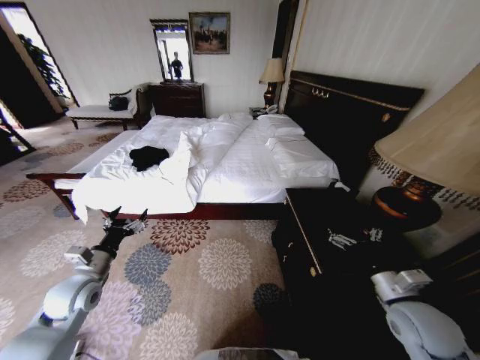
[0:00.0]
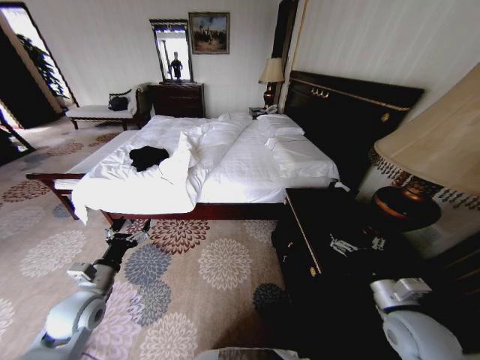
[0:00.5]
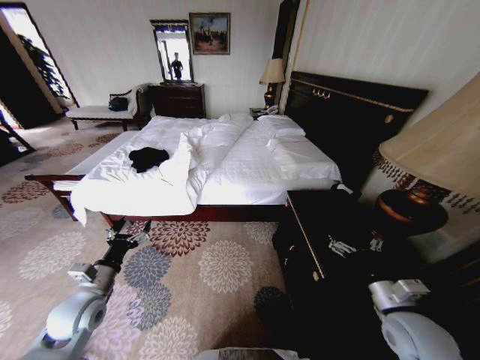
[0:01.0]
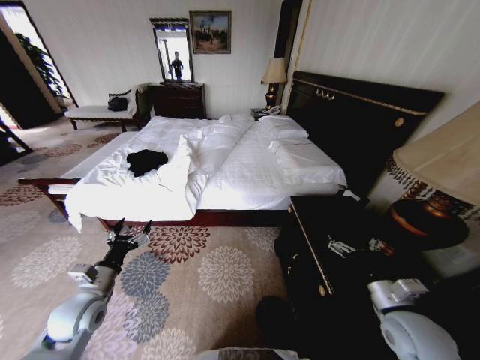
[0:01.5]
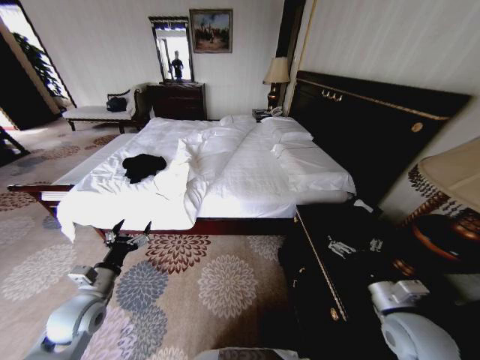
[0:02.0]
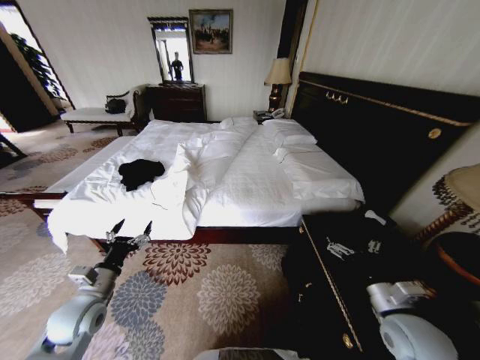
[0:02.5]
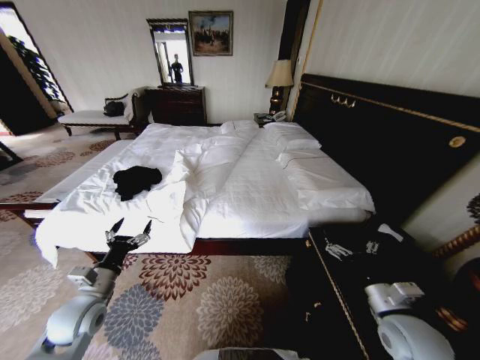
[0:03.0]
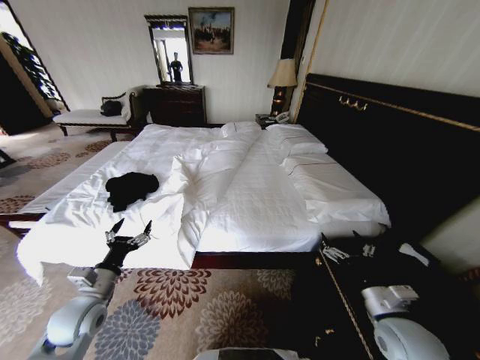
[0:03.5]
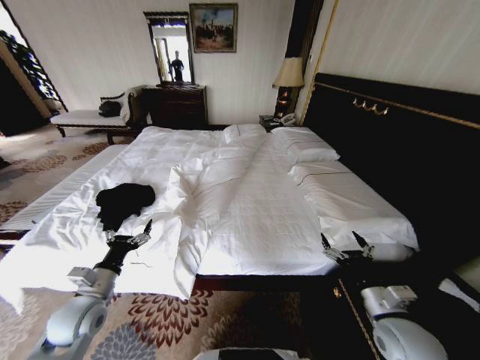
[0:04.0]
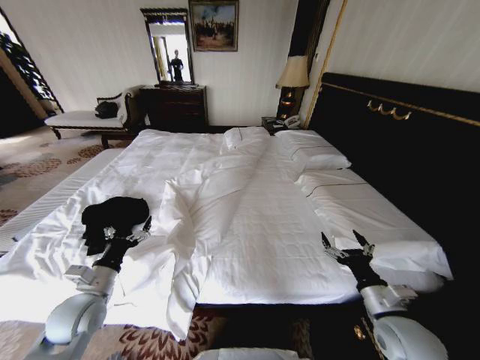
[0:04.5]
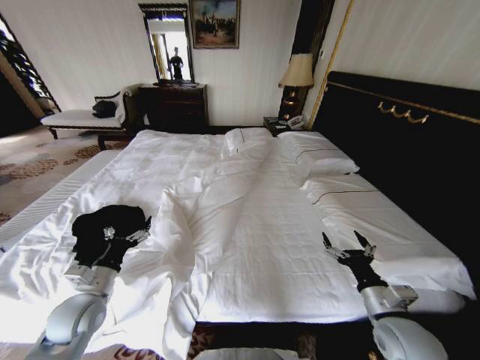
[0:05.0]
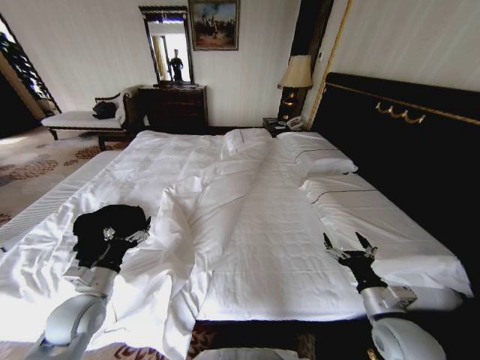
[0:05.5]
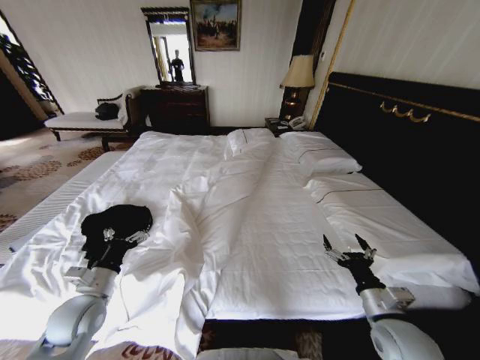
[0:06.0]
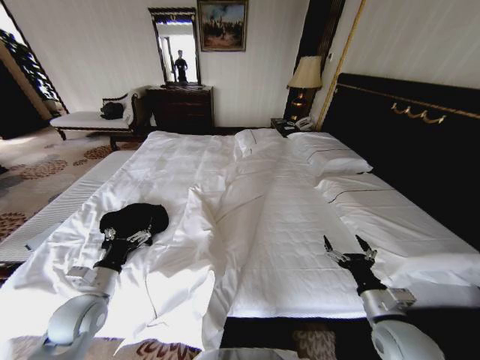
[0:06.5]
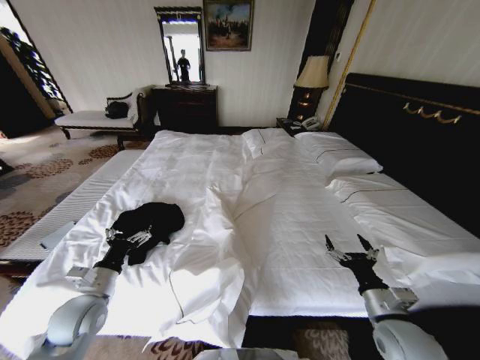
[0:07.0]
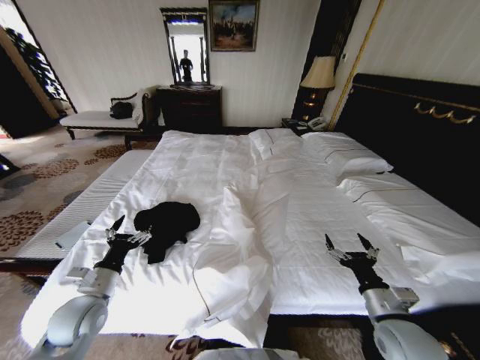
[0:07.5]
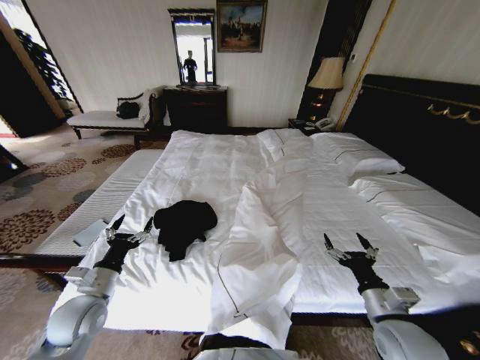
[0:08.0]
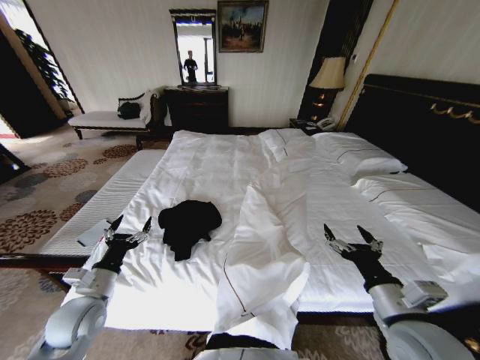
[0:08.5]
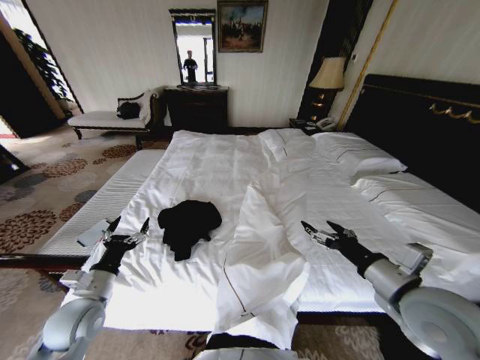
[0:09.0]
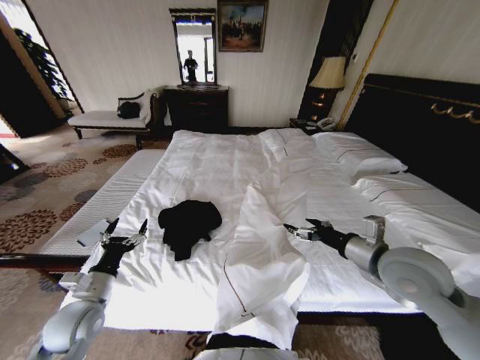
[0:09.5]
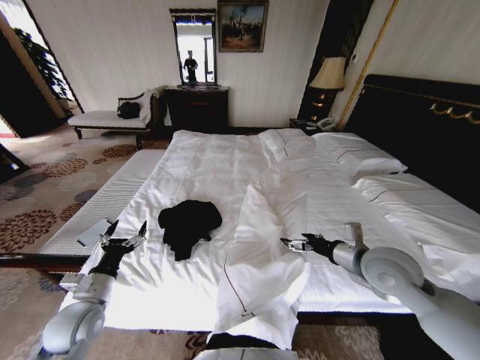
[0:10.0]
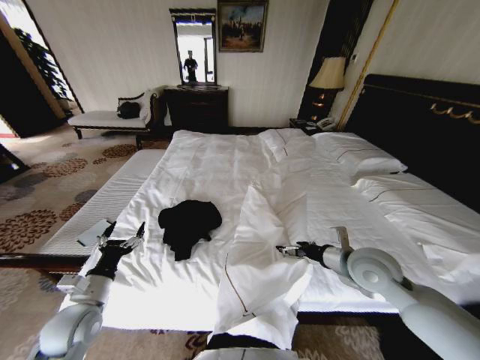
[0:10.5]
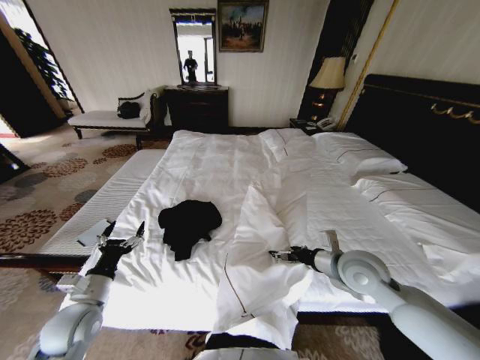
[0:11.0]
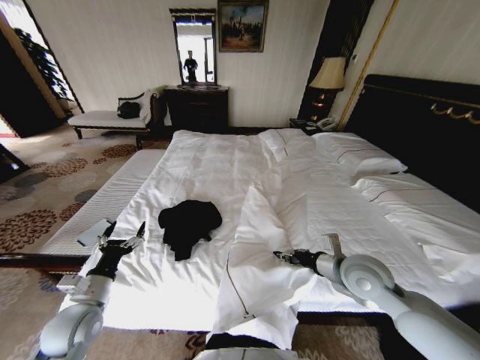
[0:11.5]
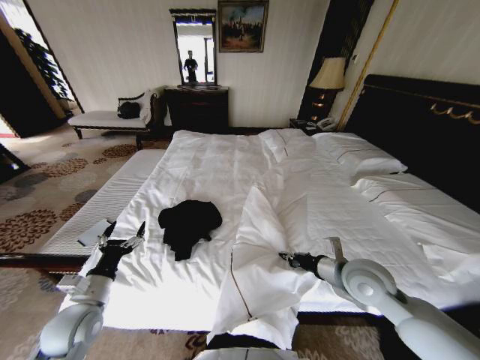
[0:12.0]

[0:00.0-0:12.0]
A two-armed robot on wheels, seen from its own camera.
Task of the whole recording: Fold the clothes on the bed.
0:08.0 to 0:10.0: The right gripper shifts approximately 15 cm forward and upward.
0:10.0 to 0:12.0: The right gripper closes.

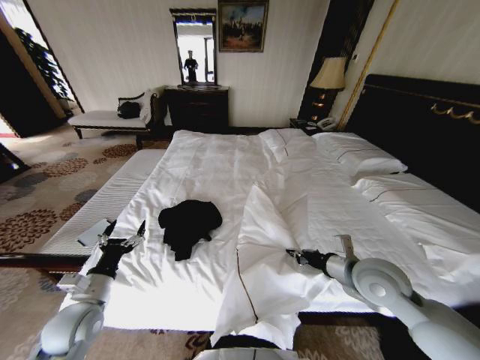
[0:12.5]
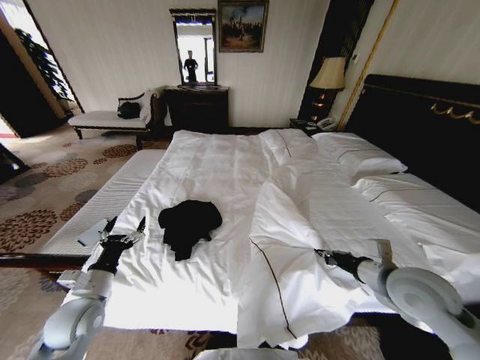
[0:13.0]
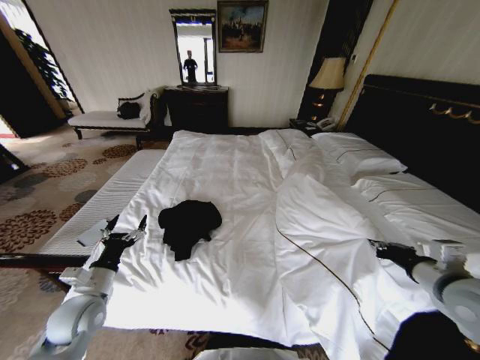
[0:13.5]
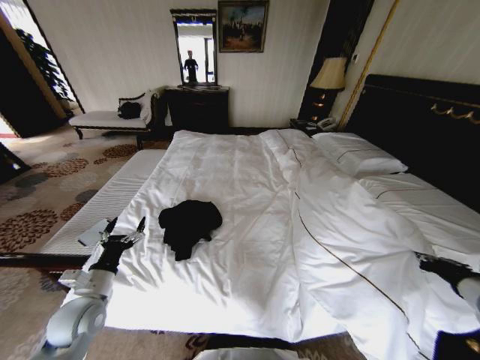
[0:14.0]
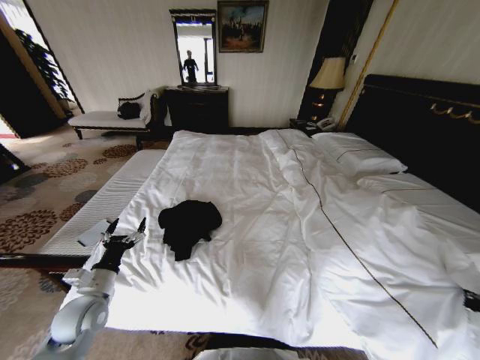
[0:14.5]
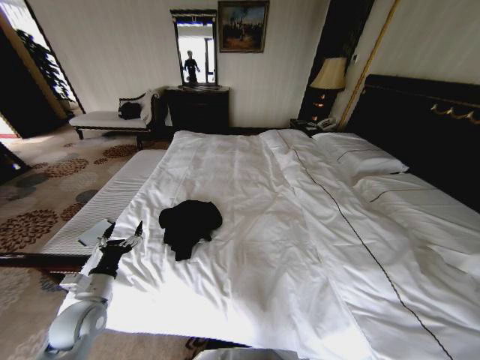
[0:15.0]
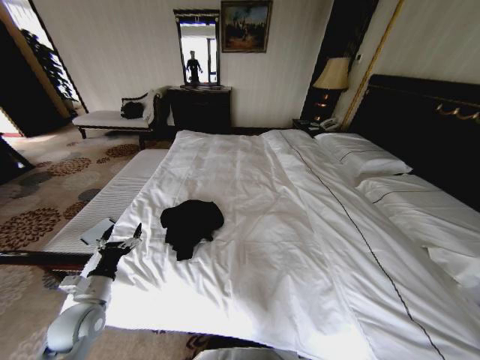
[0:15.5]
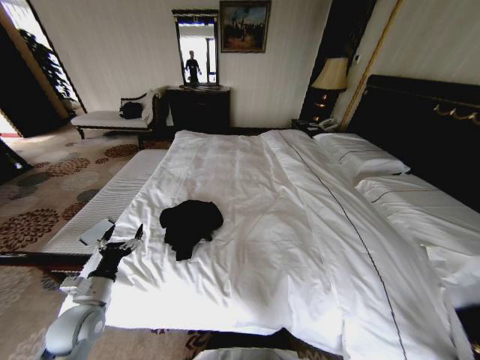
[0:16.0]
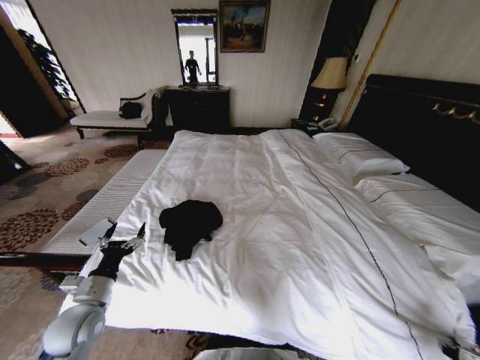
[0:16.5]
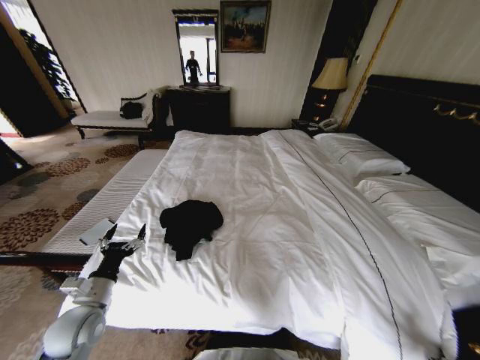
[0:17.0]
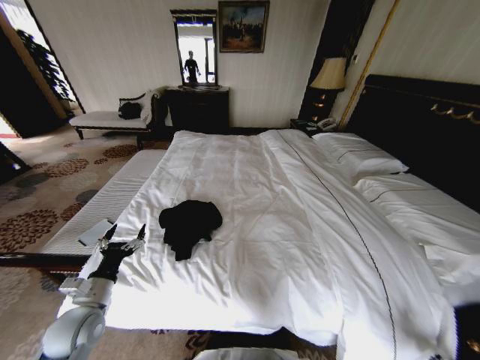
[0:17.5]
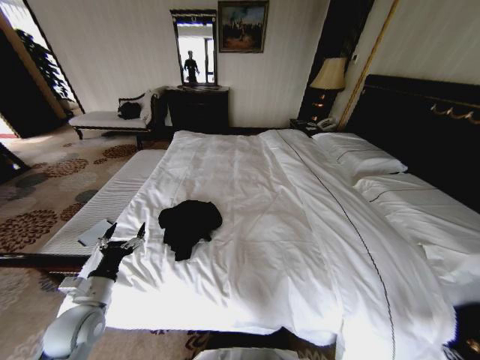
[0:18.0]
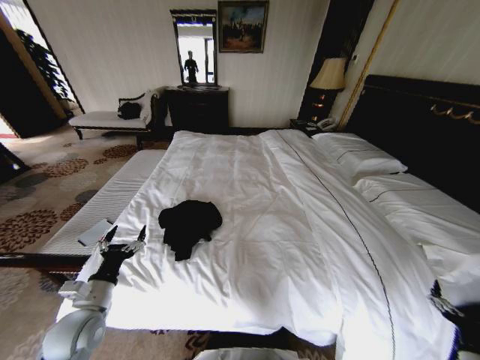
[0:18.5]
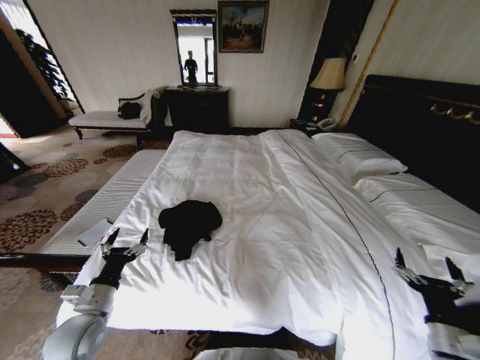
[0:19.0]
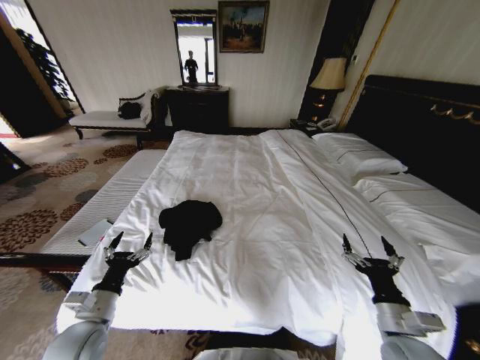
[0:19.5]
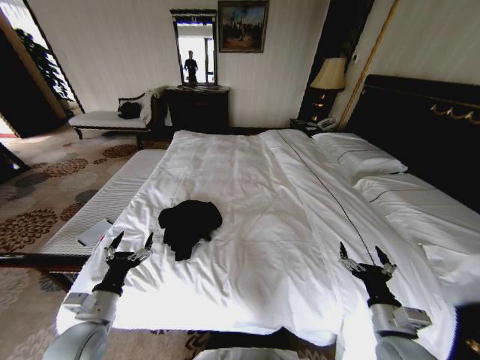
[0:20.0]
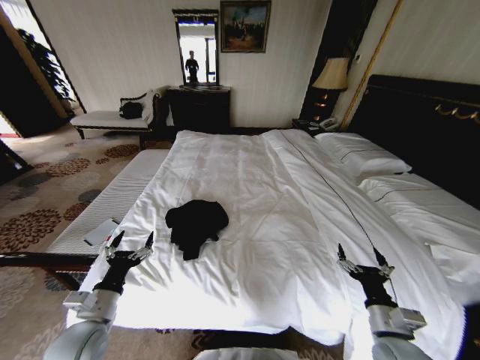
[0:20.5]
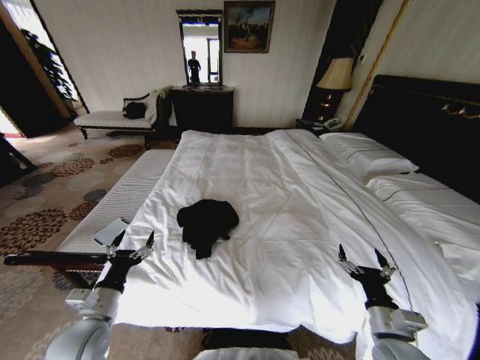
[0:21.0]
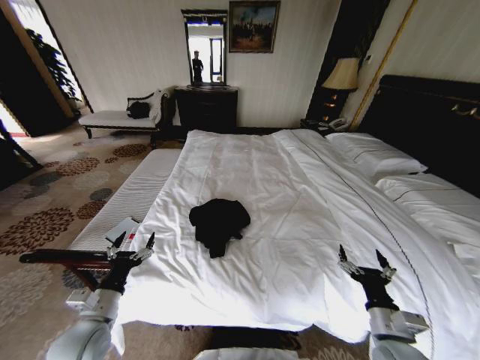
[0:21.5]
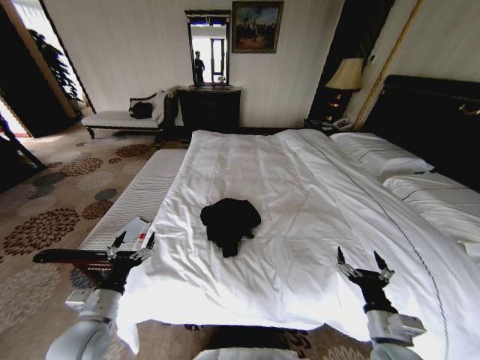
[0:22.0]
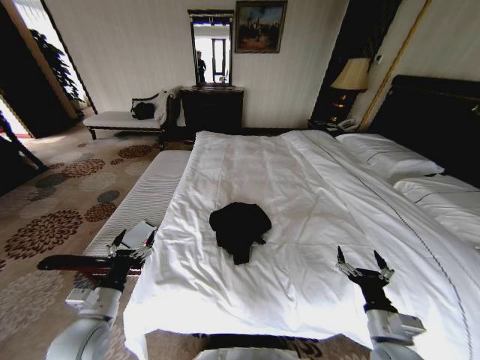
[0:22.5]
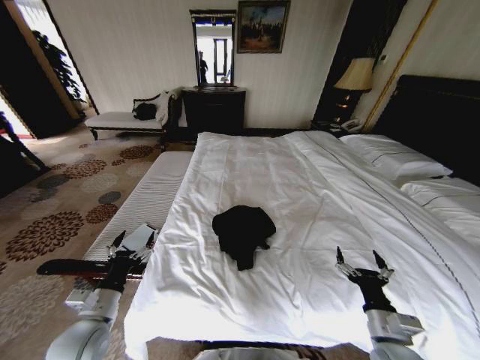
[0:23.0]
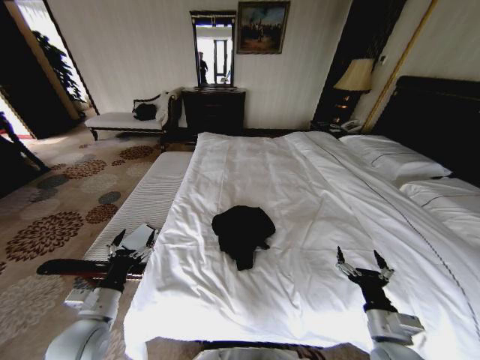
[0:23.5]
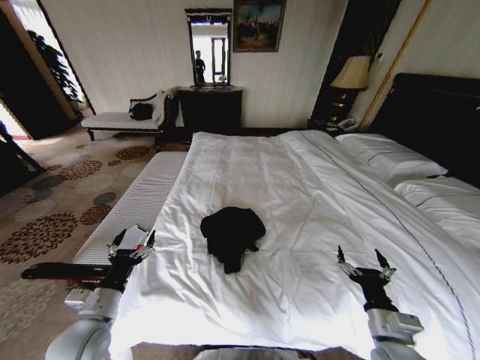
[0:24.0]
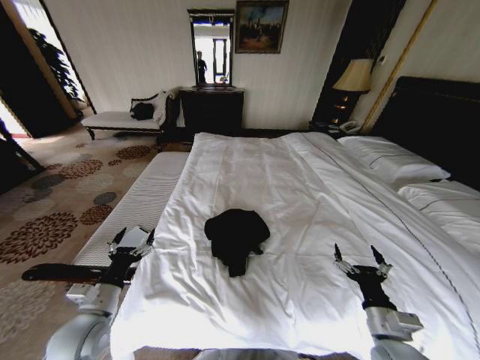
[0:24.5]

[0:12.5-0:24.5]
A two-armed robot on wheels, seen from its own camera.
Task of the whole recording: Fold the clothes on the bed.
0:12.5 to 0:14.5: The right gripper heads to the right and backward, covering approximately 25 cm.
0:14.5 to 0:16.5: The right gripper heads downward, covering approximately 30 cm.
0:16.5 to 0:18.5: The right gripper moves upward and to the left, some 15 cm, and opens.
0:18.5 to 0:20.5: The right gripper is displaced to the left and forward by about 15 cm.

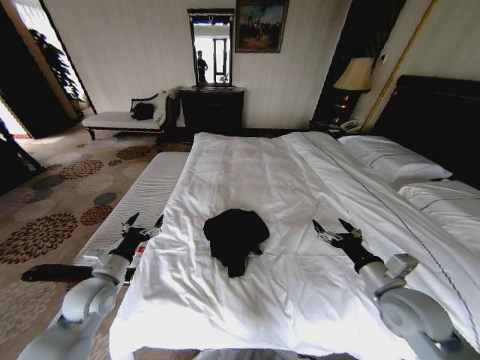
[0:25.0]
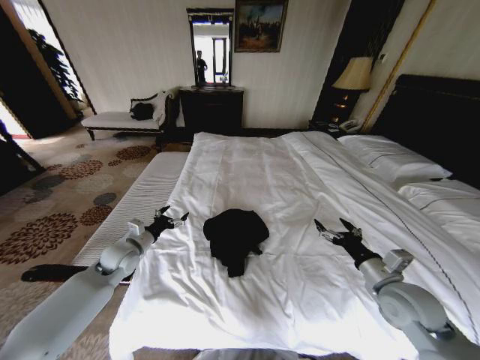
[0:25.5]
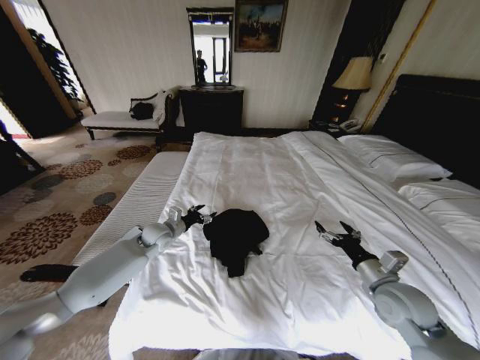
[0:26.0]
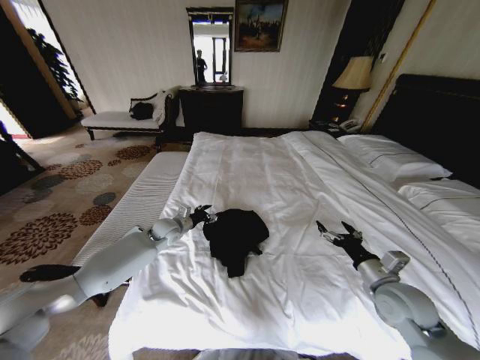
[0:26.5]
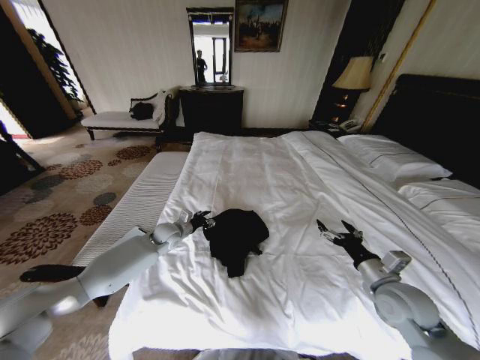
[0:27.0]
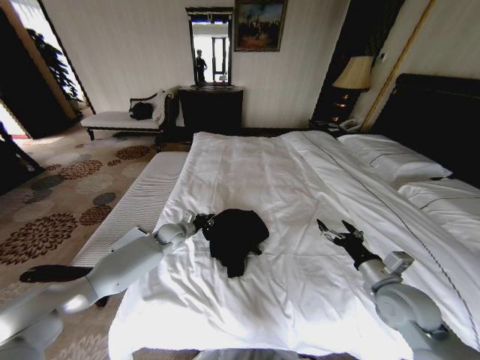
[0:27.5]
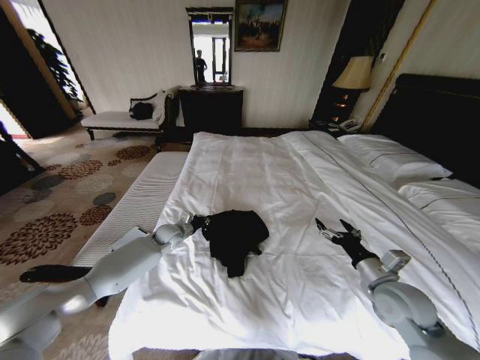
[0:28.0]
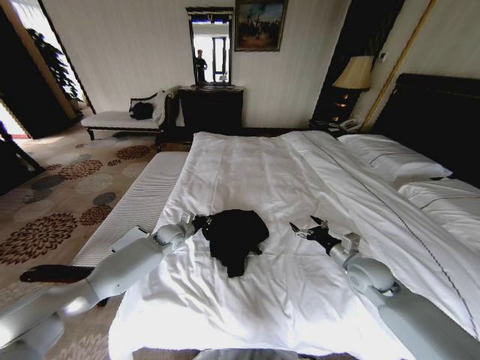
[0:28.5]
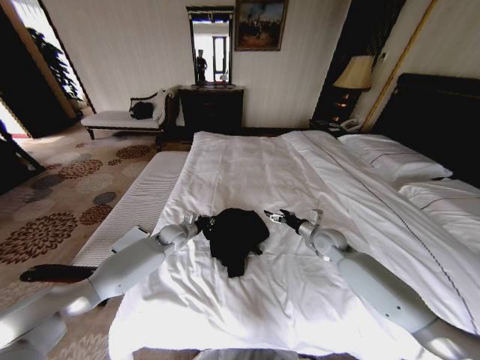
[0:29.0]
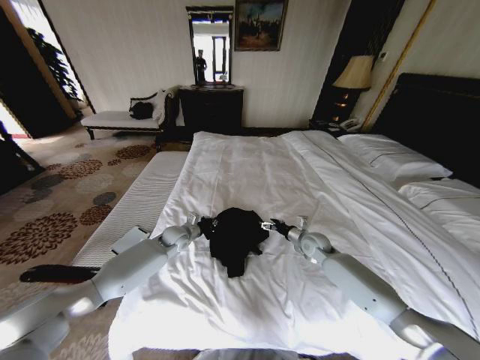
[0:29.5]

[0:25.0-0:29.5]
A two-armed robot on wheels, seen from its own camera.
Task of the whole recording: Fold the clothes on the bed.
0:25.0 to 0:27.0: The left gripper is displaced forward and to the right by about 25 cm, and closes up.
0:27.0 to 0:29.5: The left gripper closes up. The right gripper goes about 25 cm forward and downward.
